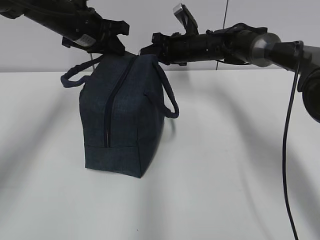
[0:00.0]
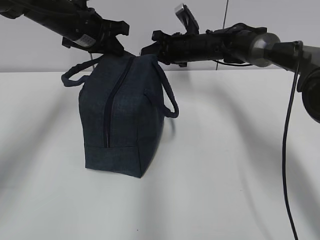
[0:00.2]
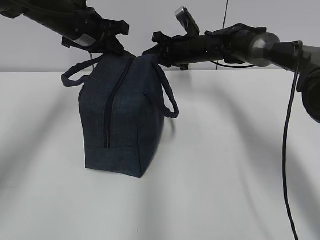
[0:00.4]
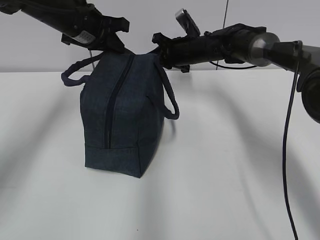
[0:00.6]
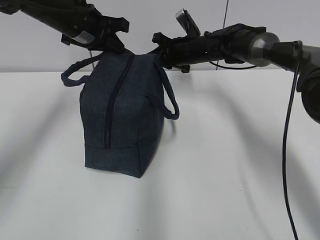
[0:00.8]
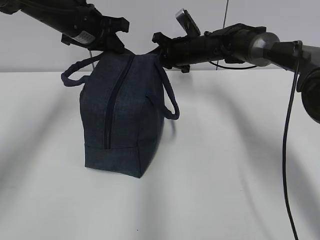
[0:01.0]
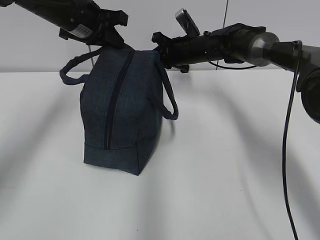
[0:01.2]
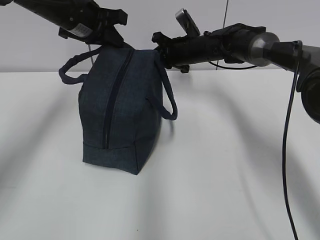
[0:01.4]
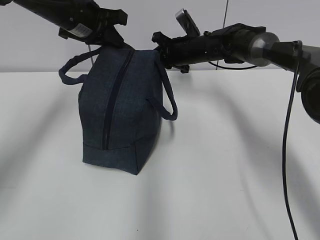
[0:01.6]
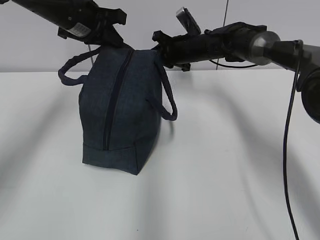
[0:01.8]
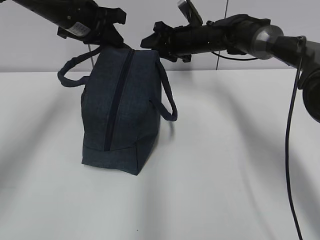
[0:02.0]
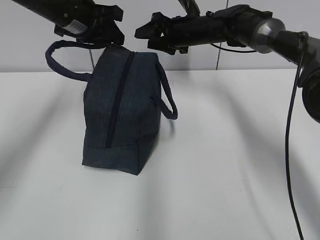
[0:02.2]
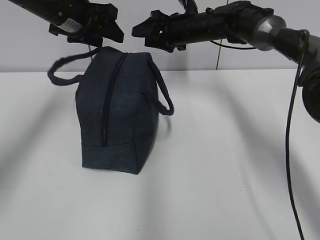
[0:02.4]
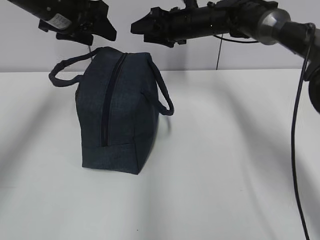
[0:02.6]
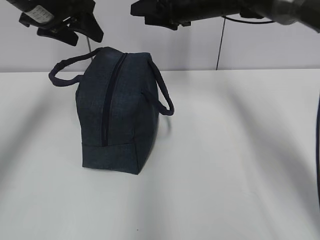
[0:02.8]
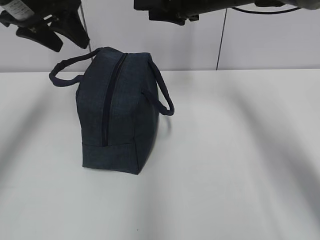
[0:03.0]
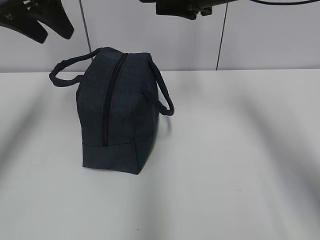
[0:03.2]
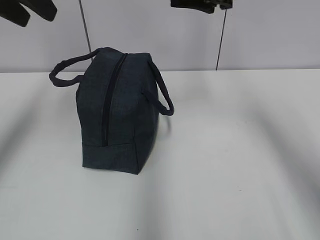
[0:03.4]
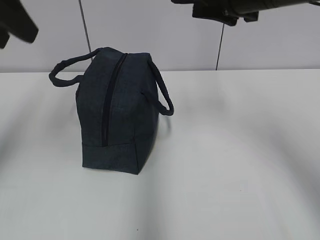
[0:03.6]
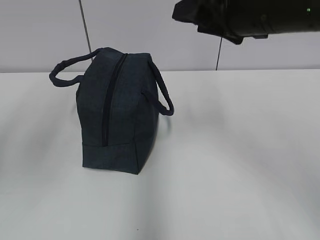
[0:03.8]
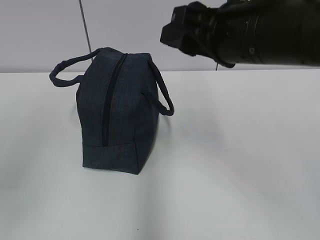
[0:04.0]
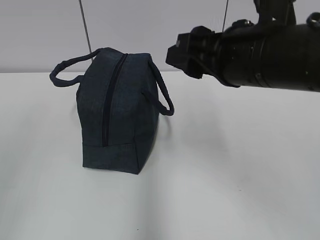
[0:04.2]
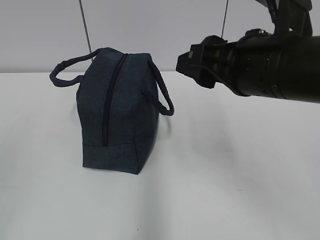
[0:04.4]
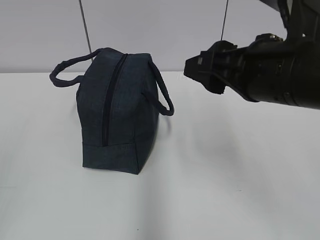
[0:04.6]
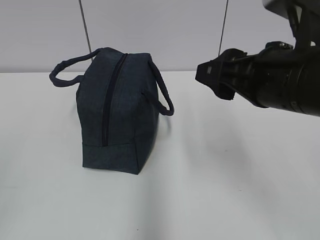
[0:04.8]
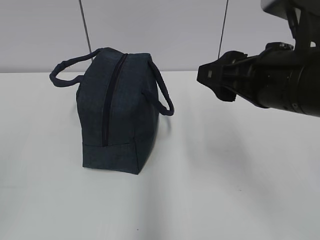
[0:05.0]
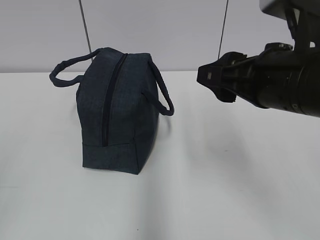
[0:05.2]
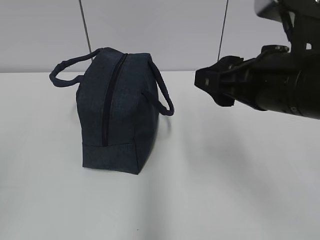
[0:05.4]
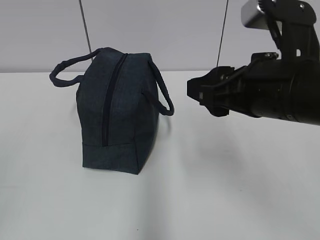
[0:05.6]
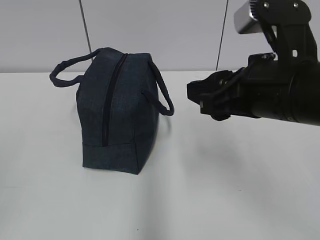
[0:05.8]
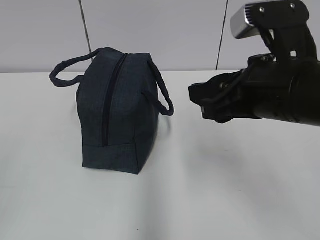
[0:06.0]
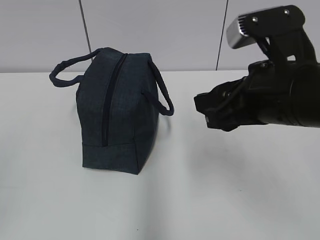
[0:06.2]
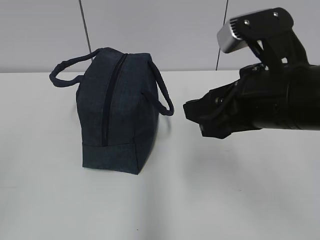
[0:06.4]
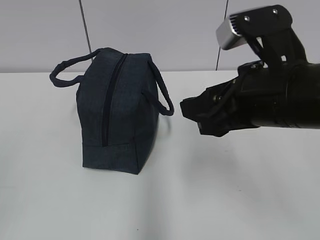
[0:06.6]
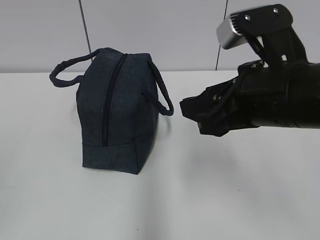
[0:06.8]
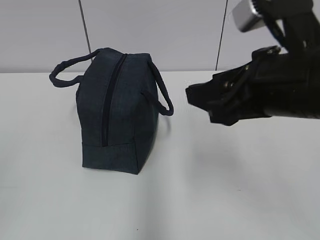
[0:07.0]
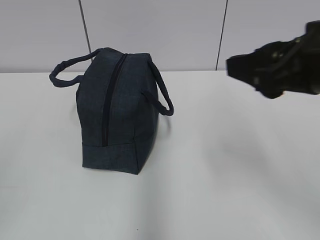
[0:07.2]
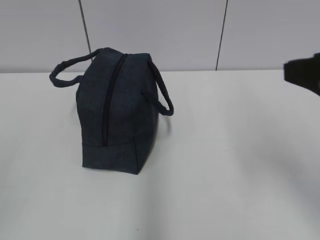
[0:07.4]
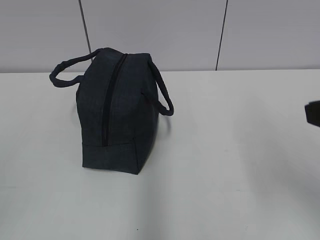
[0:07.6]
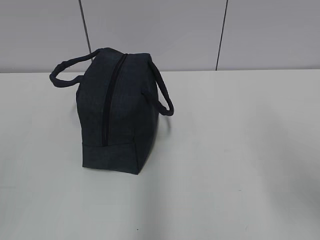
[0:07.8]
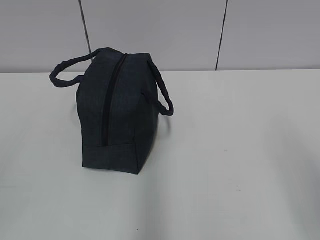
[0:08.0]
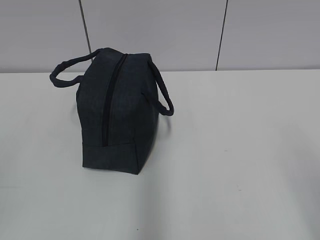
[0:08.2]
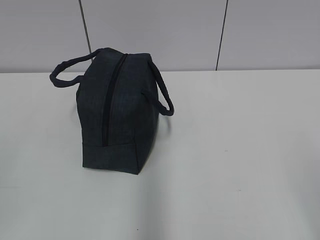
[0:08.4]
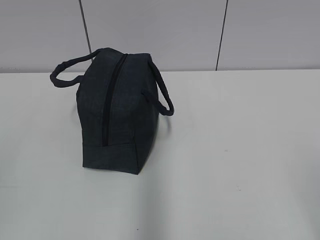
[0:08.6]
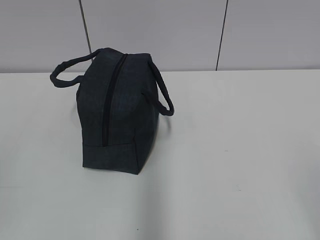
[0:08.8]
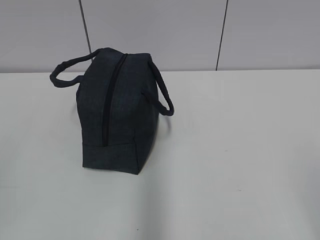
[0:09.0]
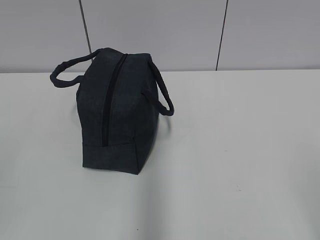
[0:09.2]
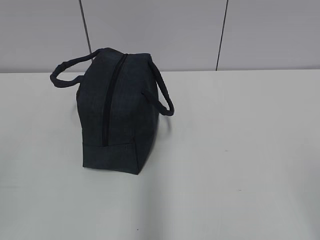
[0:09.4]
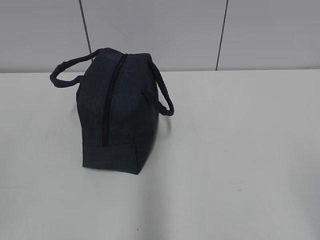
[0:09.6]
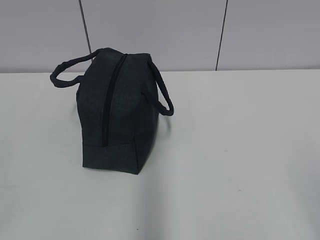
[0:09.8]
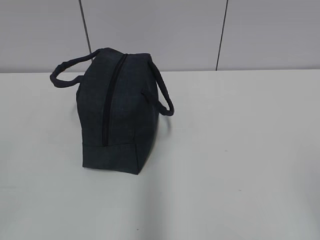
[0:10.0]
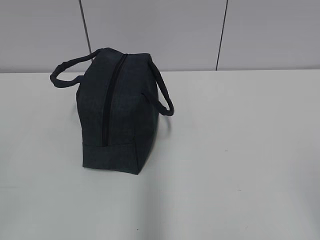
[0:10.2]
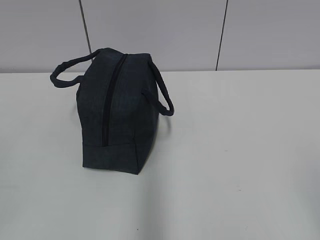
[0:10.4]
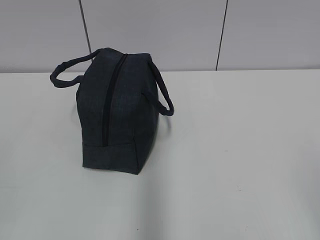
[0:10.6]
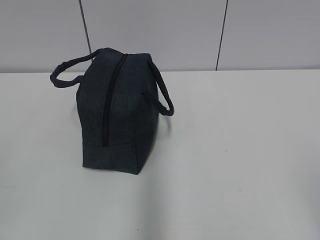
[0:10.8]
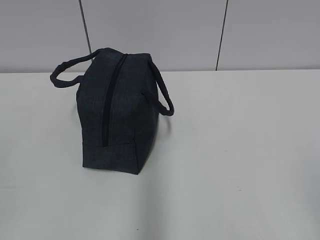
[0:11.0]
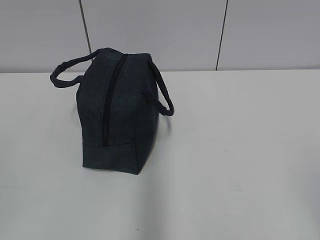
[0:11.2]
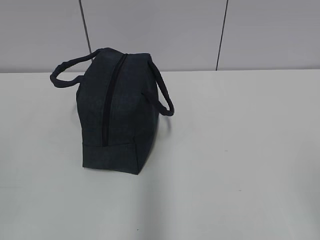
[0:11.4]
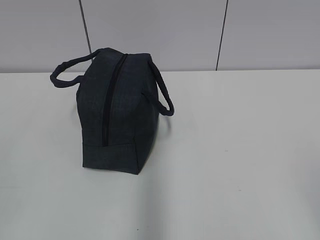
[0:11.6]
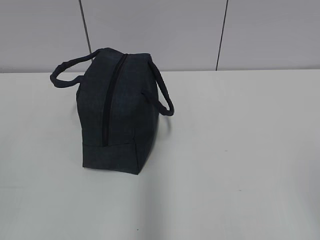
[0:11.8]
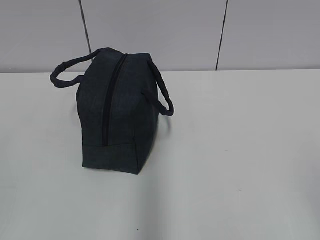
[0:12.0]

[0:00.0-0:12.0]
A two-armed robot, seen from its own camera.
Step, 0:00.0 to 0:01.8: Pull the zipper with your right hand.
0:00.0 to 0:01.6: The grippers make only small movements.
0:01.6 to 0:03.0: The left gripper heads backward, upward and to the left, covering some 10 cm, and opens its fingers. The right gripper shifts some 15 cm upward and backward, and opens its fingers.
0:03.0 to 0:04.4: Both grippers travel together backward, some 30 cm.
0:06.0 to 0:07.6: The right gripper shifts about 10 cm to the right and backward.
0:07.6 to 0:09.0: The right gripper is displaced backward by approximately 15 cm.

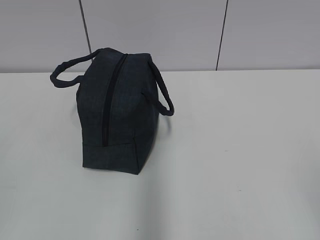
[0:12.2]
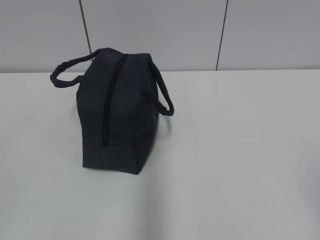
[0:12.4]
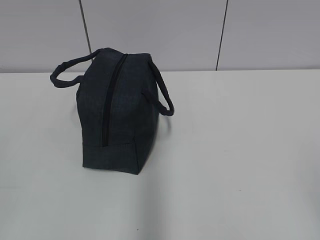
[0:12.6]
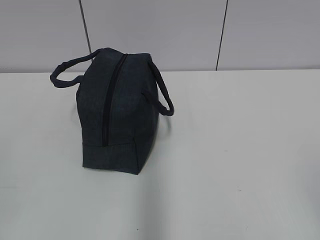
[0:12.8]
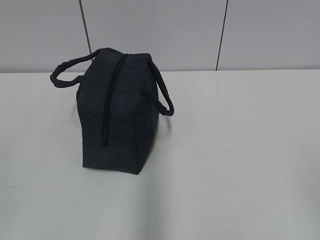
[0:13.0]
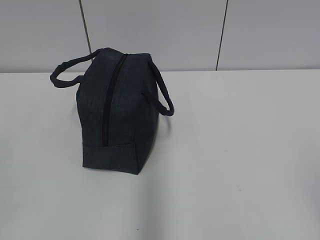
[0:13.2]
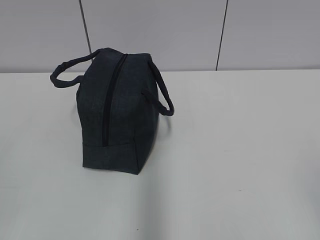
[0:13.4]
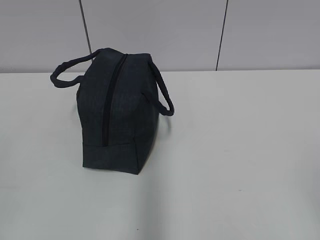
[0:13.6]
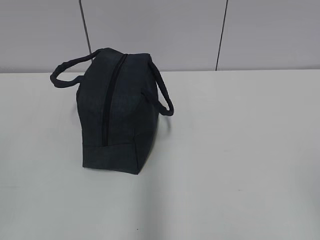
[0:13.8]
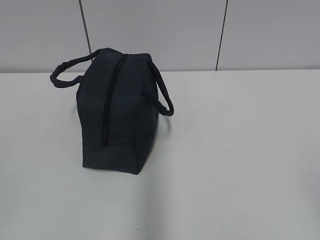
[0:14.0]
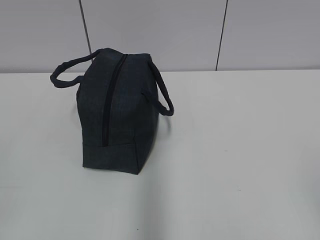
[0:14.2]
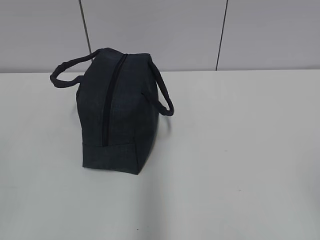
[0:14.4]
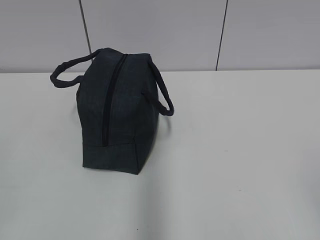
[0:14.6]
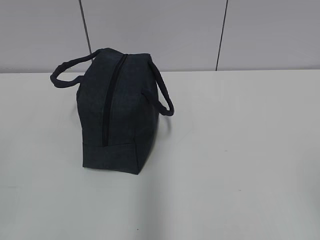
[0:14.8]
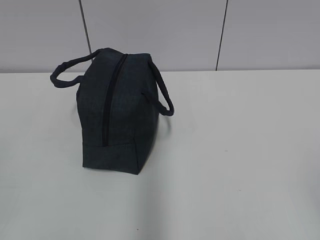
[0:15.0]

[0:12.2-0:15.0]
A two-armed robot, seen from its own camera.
0:13.6 to 0:15.0: The two grippers keep their place.

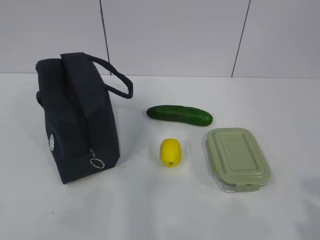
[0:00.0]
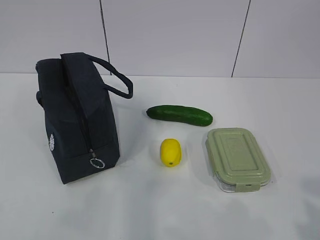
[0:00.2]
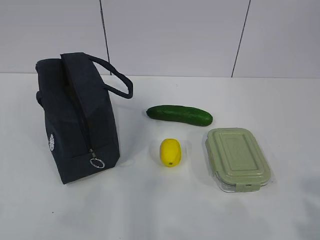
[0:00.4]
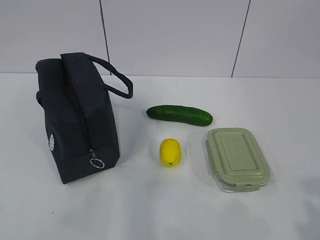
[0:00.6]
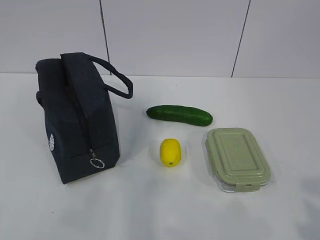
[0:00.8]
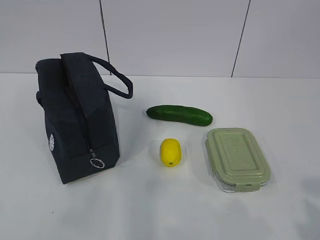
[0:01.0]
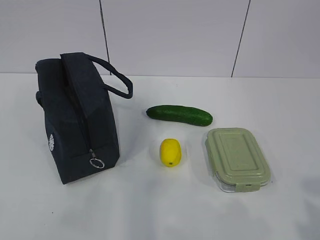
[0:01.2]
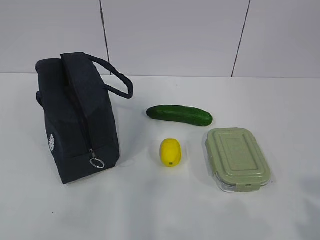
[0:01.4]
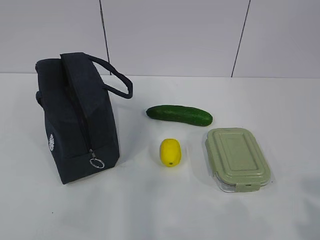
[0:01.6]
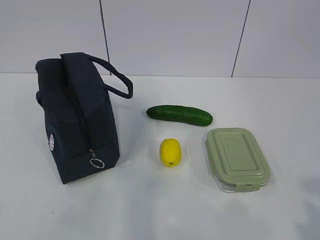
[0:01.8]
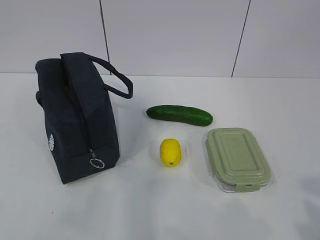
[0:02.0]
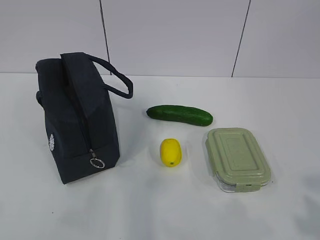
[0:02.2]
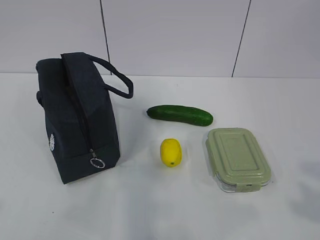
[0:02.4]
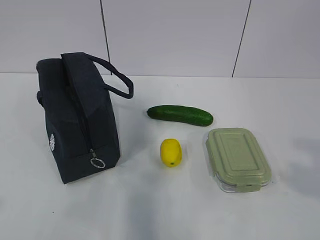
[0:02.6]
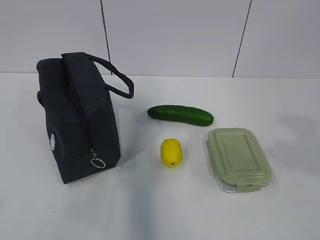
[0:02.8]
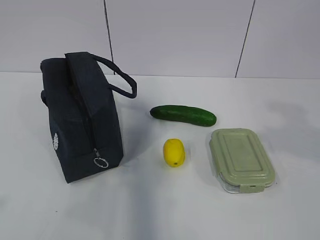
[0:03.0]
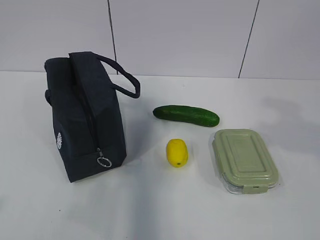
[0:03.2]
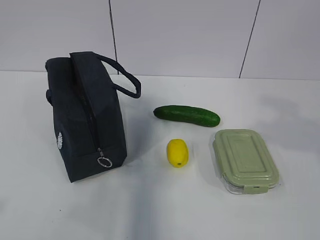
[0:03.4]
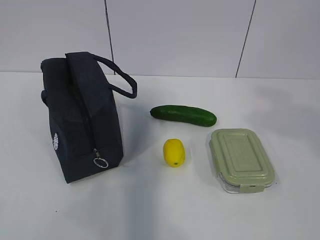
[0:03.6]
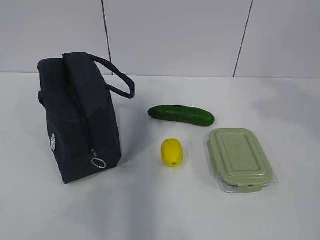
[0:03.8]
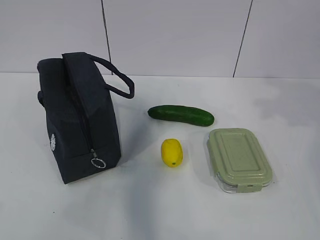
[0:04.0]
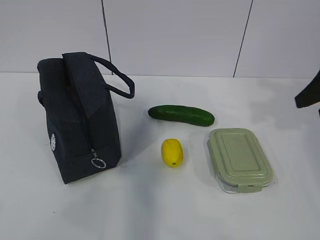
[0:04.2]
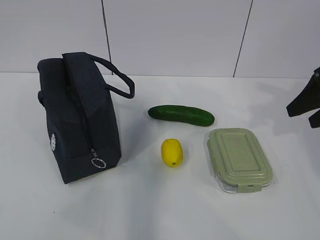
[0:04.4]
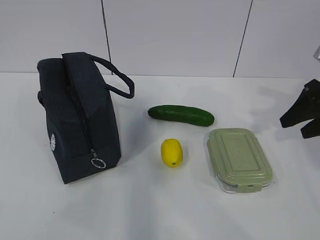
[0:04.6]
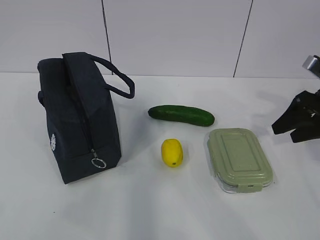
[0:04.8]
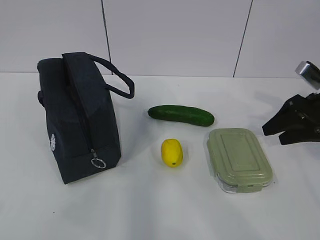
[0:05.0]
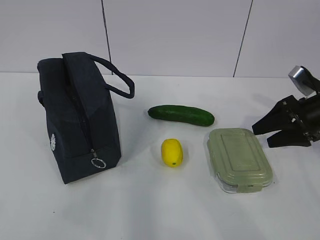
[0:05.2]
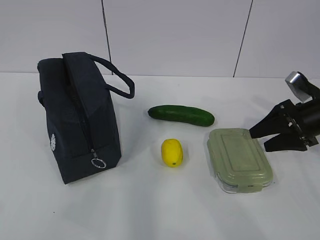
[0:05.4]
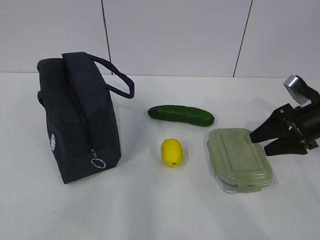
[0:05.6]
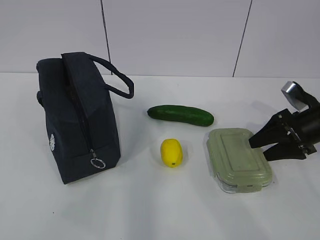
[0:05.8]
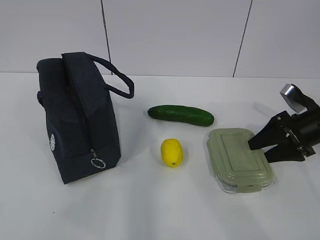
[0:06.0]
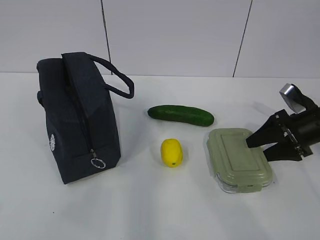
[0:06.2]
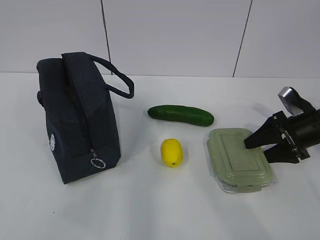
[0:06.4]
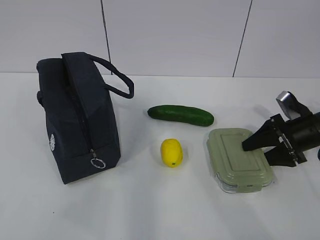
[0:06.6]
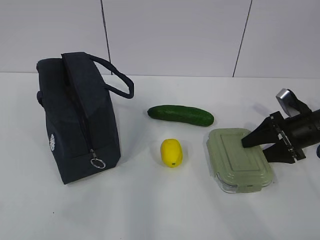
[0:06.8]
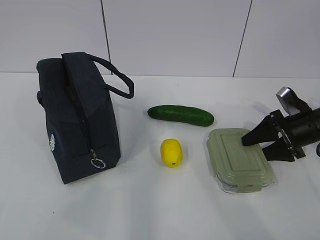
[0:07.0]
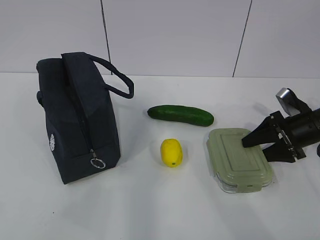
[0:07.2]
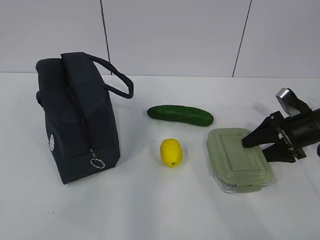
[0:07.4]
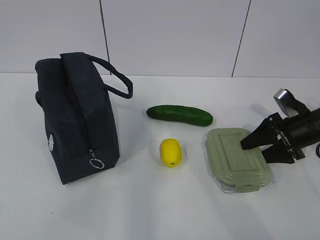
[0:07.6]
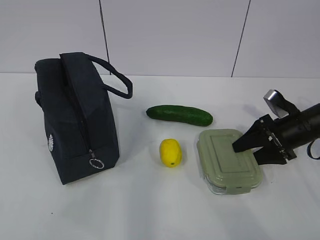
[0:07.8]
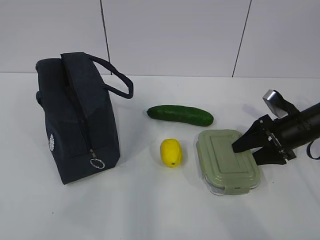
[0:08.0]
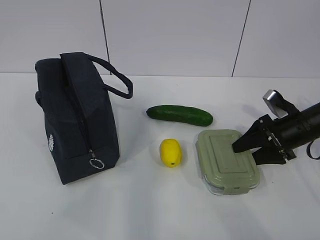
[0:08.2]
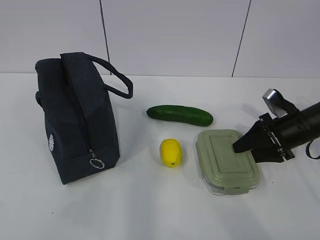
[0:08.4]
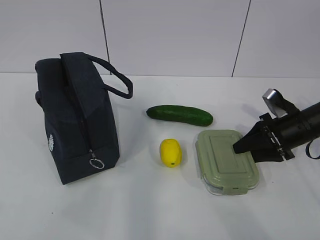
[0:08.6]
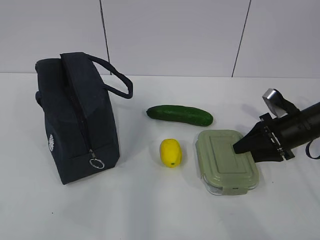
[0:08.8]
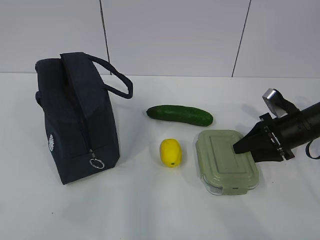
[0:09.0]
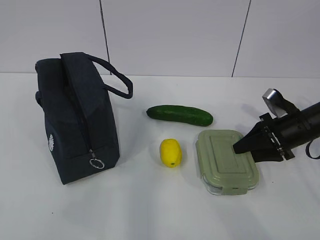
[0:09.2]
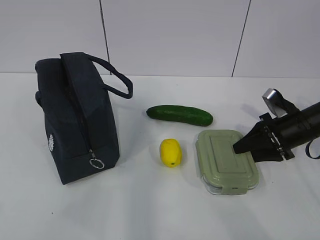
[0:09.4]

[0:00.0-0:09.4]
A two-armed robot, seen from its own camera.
Step, 0:00.0 to 0:08.0: Grab the lunch box with your right hand.
0:01.6 to 0:03.2: The right gripper shifts approximately 15 cm forward and upward.
0:03.2 to 0:04.8: The right gripper heads forward and downward, covering about 25 cm.
0:04.8 to 0:06.2: The right gripper travels downward by approximately 10 cm.
0:06.2 to 0:07.8: There are only small adjustments of the grippers.
0:07.8 to 0:09.4: The right gripper closes up.
